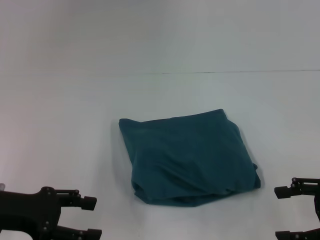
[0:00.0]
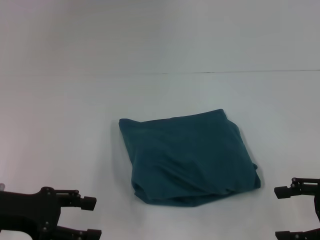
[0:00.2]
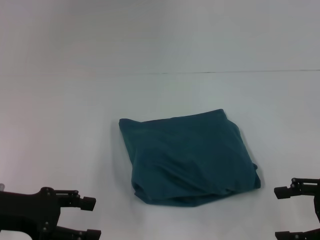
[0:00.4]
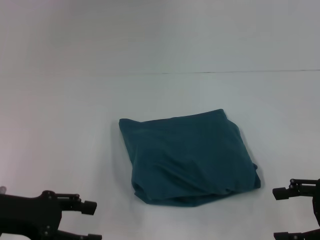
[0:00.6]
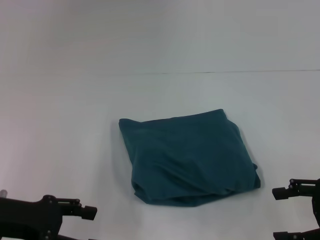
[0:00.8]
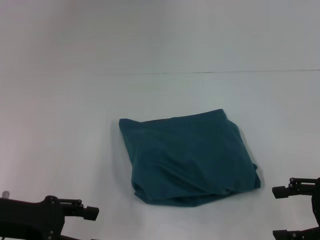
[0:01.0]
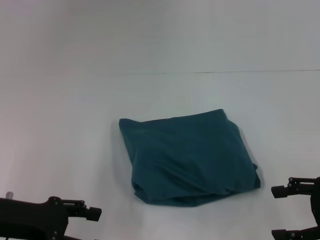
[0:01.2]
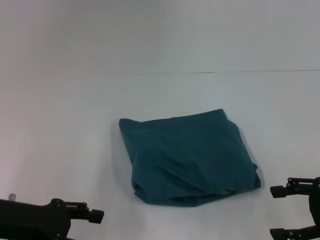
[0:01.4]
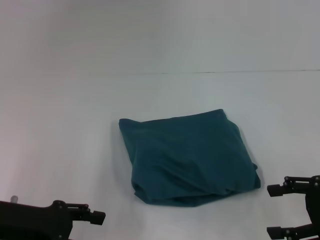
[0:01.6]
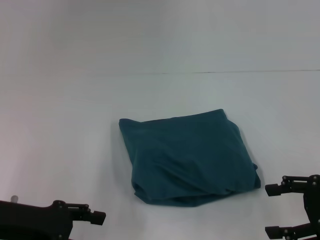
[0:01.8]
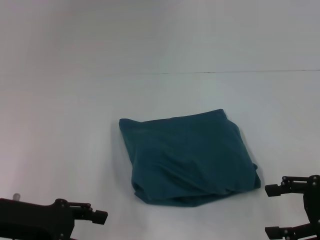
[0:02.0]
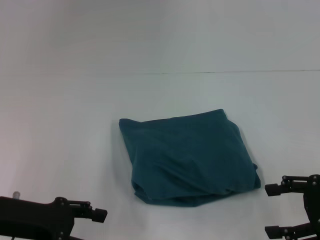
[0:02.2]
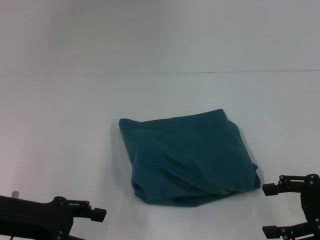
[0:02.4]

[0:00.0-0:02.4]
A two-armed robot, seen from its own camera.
0:00.0 to 0:01.2: Both grippers stay about where they are.
0:01.2 to 0:02.4: Neither gripper changes place.
